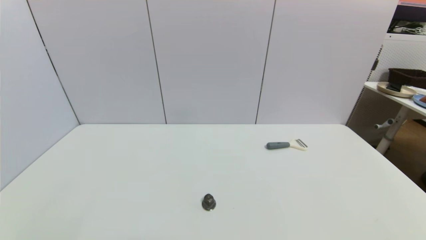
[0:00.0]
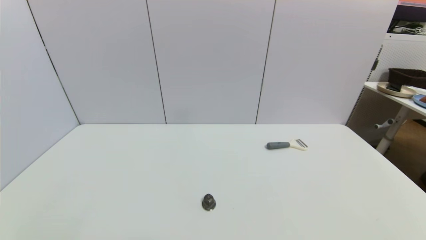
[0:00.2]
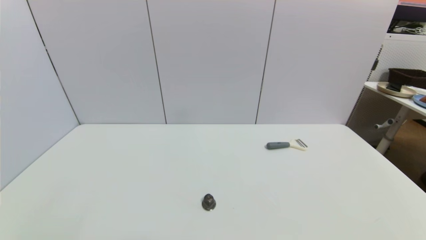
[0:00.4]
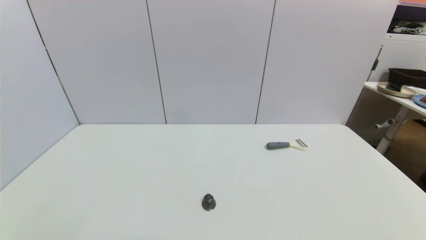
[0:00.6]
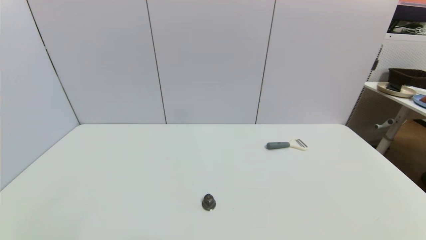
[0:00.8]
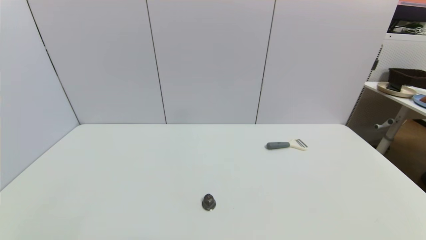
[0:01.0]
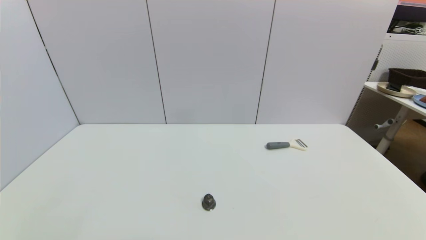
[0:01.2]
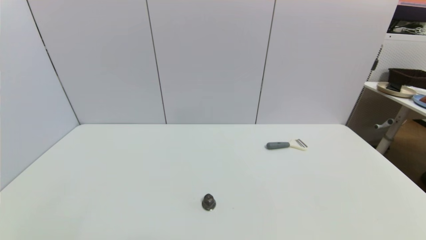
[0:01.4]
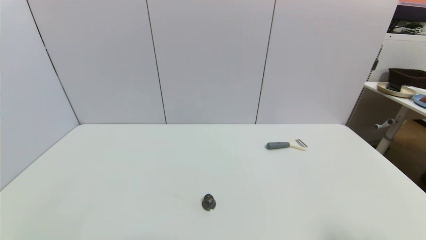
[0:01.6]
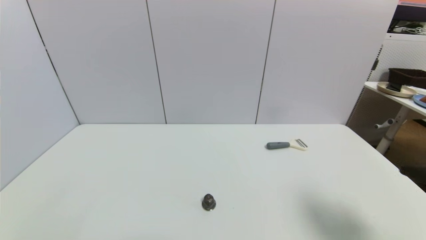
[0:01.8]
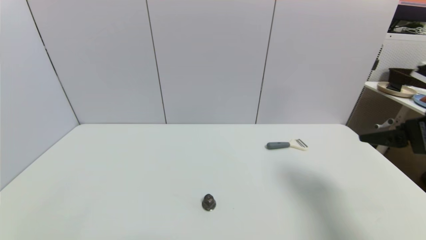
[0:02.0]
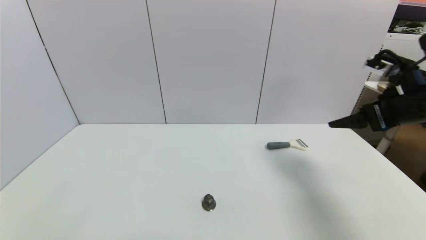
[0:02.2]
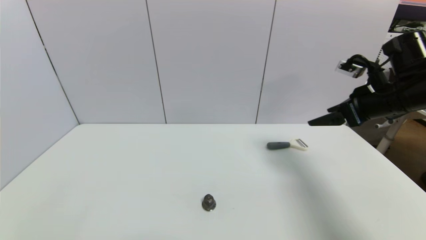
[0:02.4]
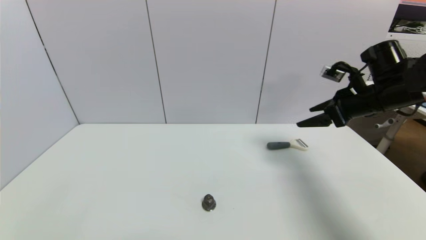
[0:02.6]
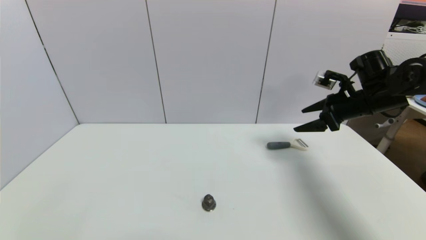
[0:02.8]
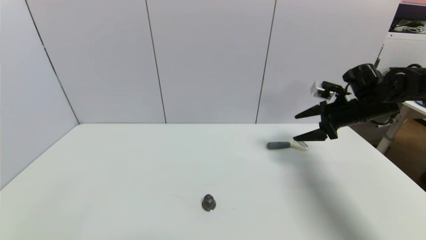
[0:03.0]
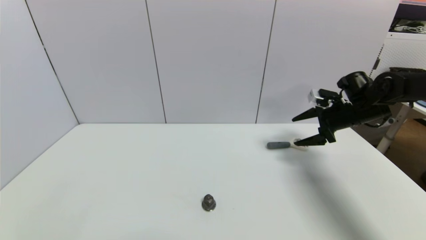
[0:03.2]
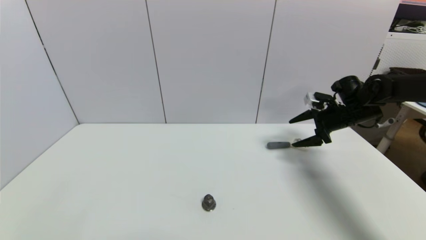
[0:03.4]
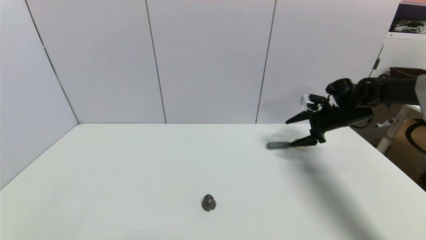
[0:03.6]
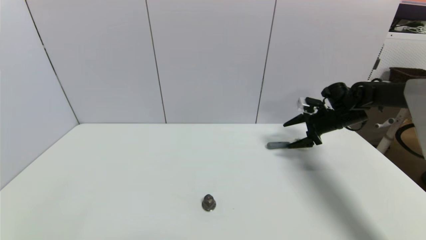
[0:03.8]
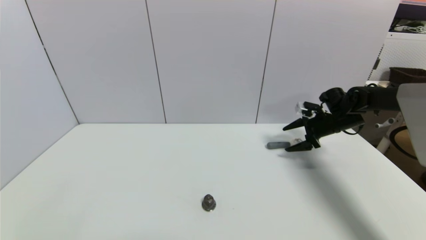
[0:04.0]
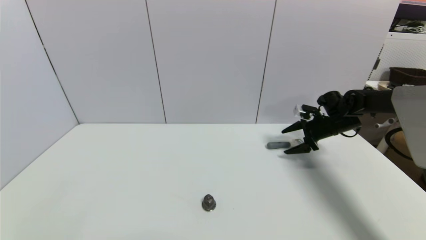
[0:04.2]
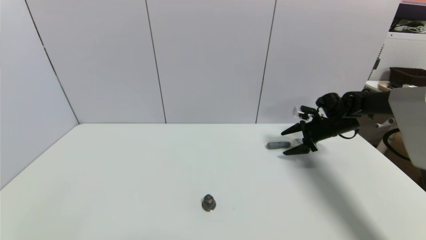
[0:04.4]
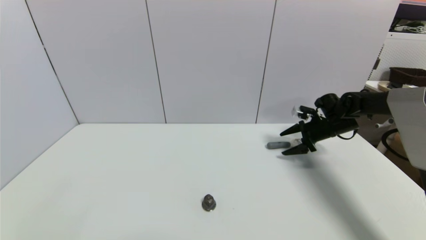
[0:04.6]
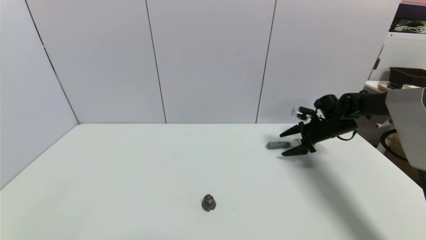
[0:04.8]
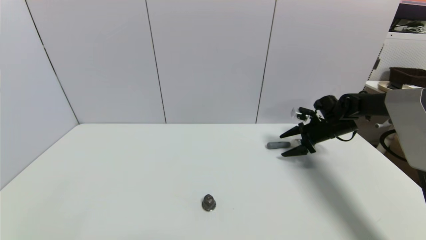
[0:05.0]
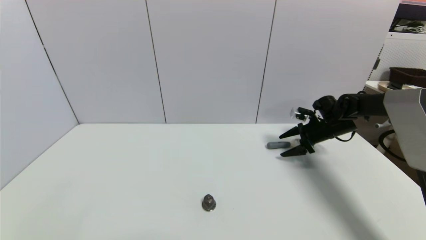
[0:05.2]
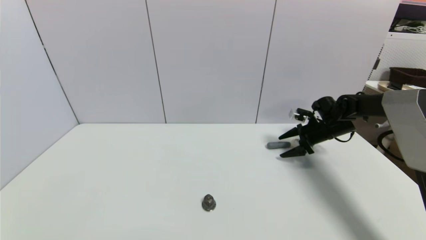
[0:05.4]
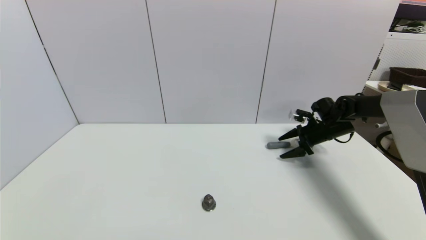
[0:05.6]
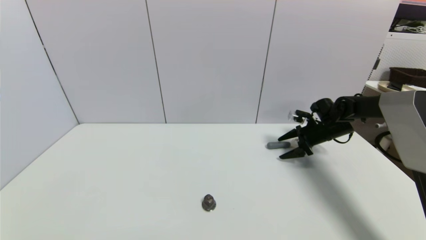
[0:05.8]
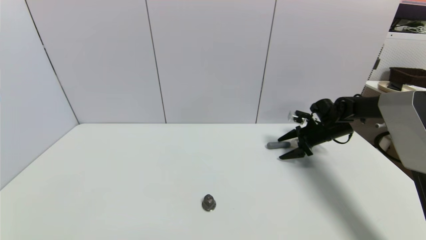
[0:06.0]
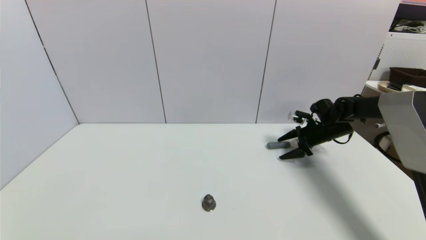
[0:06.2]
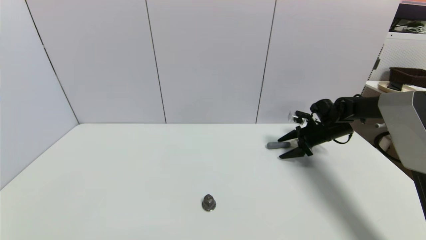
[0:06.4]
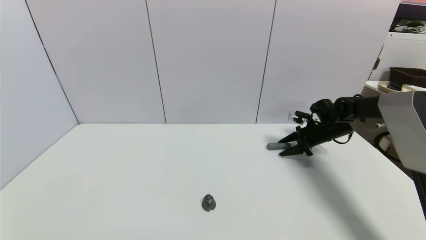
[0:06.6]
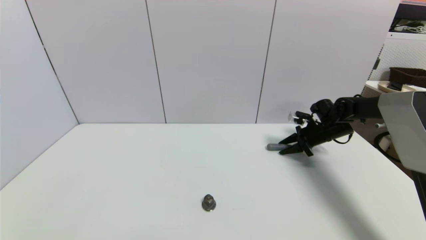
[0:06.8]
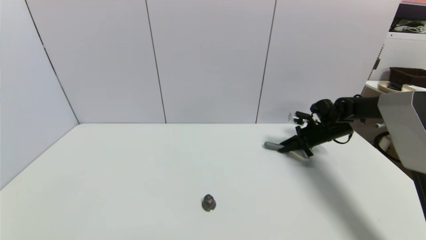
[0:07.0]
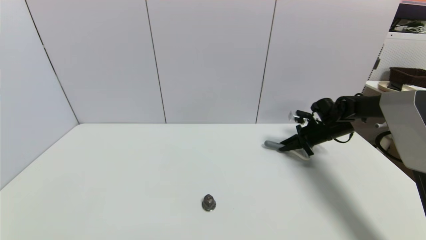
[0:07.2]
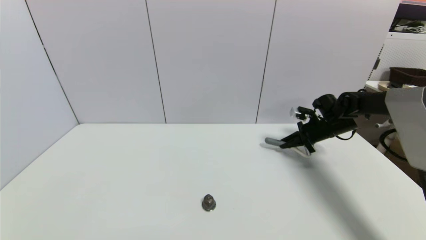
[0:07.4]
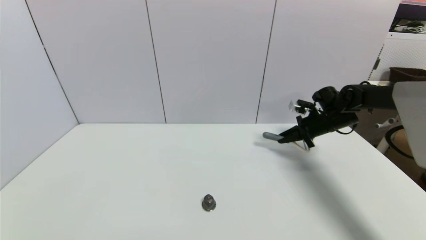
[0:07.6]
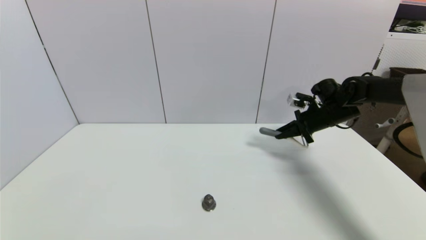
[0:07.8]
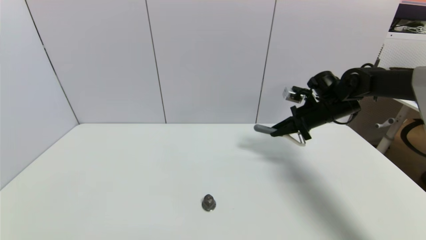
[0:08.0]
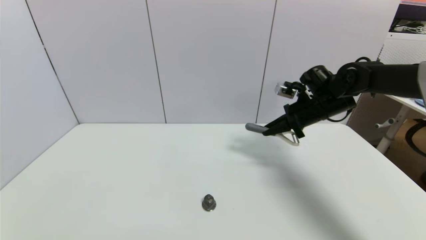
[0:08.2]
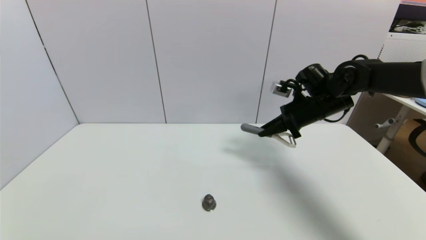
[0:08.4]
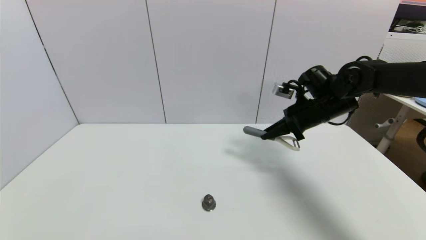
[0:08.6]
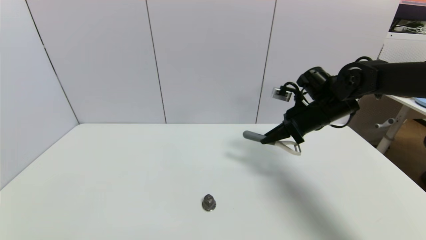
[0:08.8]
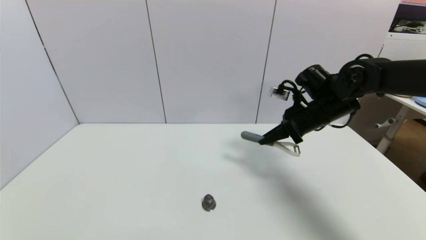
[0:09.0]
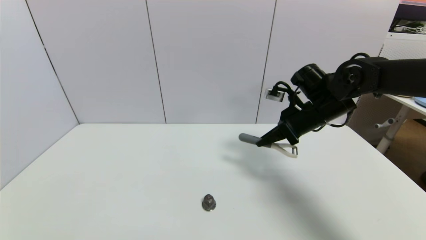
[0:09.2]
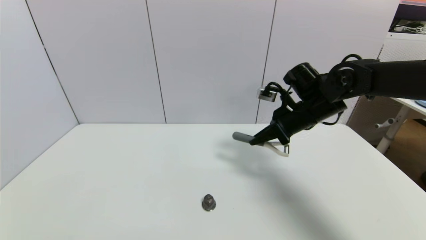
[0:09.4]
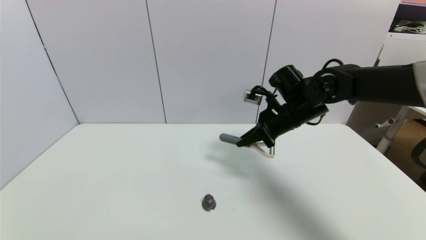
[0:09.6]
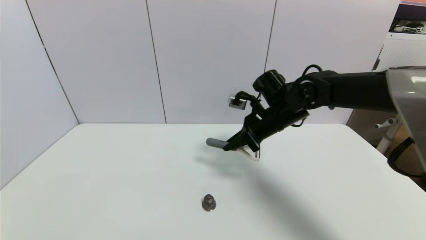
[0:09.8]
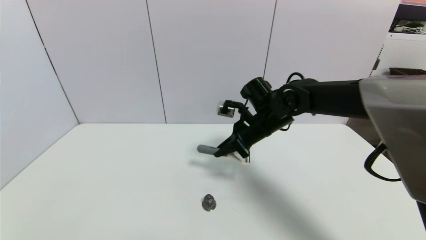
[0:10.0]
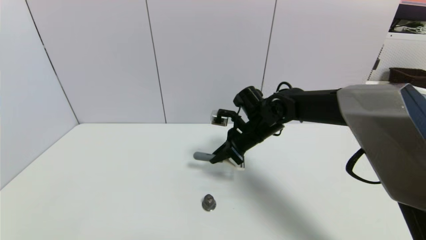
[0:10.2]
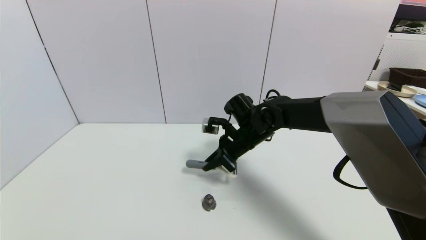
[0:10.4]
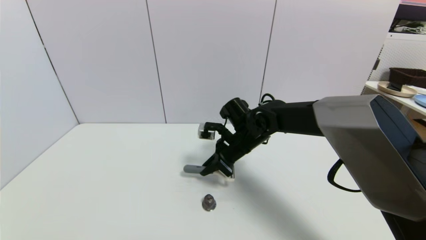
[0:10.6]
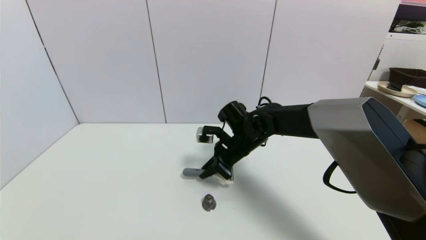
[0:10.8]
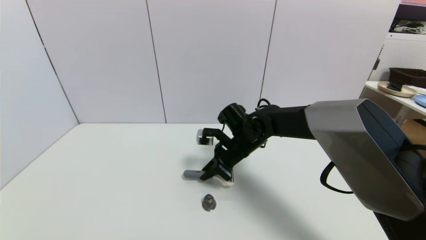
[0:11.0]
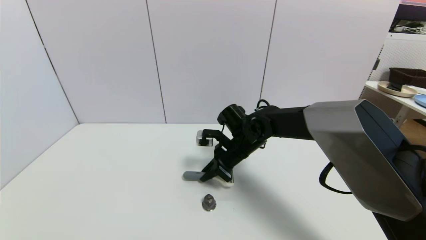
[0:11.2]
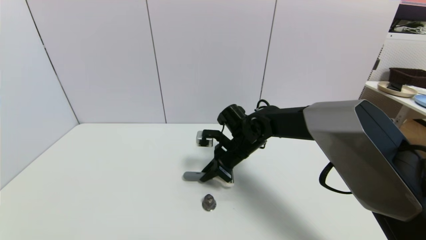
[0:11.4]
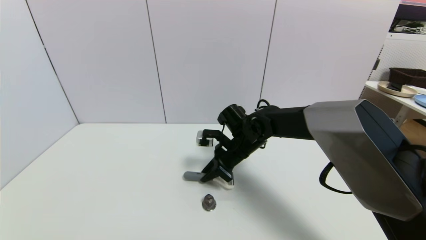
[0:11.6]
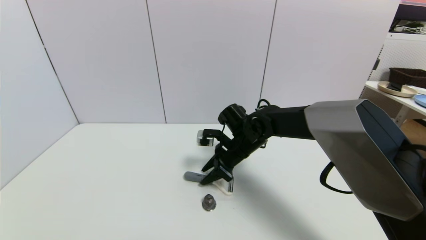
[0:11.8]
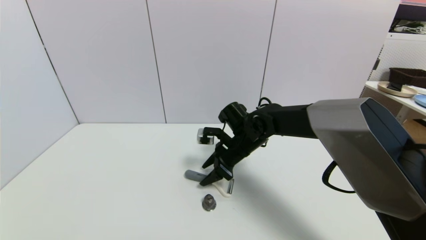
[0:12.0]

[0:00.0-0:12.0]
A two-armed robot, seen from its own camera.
Step, 0:01.8 to 0:07.6: Grasp the peeler with right gripper.
0:01.6 to 0:03.0: The right gripper is displaced forward by roughly 35 cm.
0:03.0 to 0:04.4: The right gripper shifts some 10 cm downward and forward.
0:04.4 to 0:06.0: The grippers move only a little.
0:06.0 to 0:07.6: The right gripper closes.
0:07.6 to 0:09.0: The right gripper shifts some 15 cm to the left, backward and upward.
0:09.0 to 0:10.4: The right gripper travels to the left and downward by some 15 cm.
0:10.4 to 0:12.0: The right gripper opens.

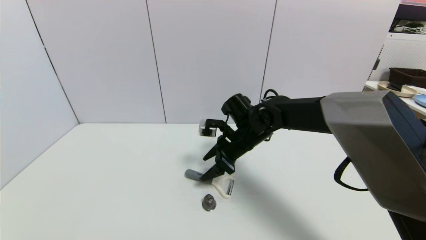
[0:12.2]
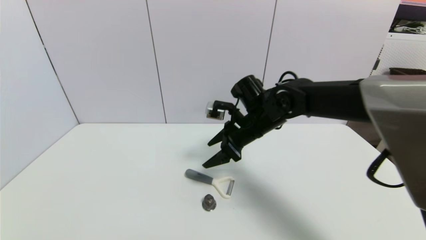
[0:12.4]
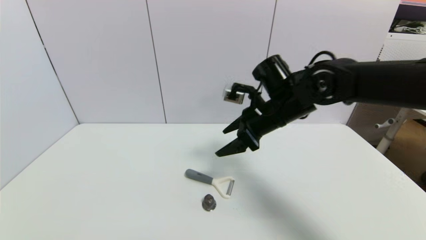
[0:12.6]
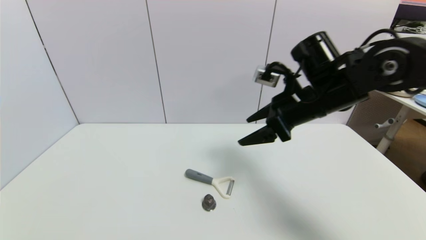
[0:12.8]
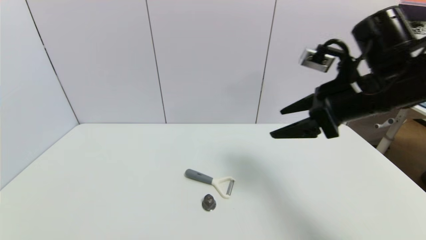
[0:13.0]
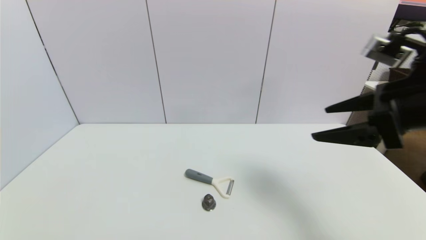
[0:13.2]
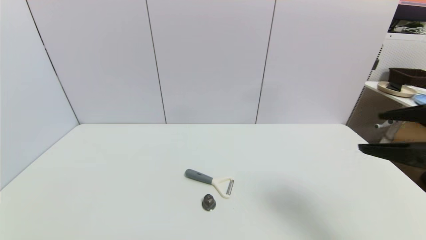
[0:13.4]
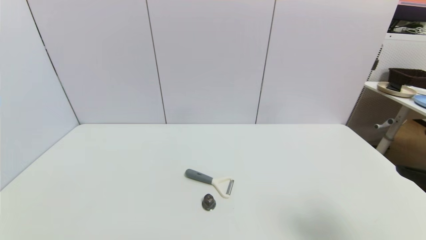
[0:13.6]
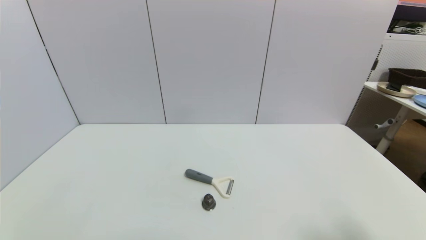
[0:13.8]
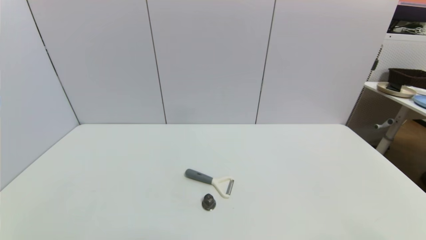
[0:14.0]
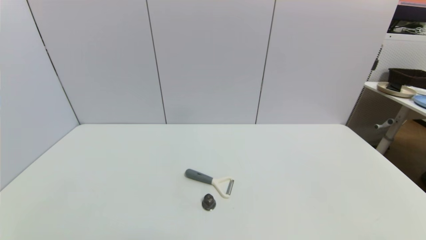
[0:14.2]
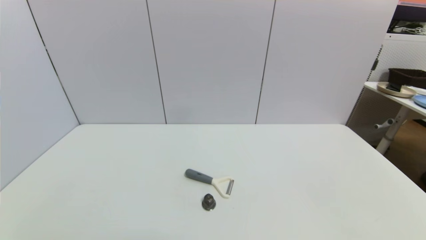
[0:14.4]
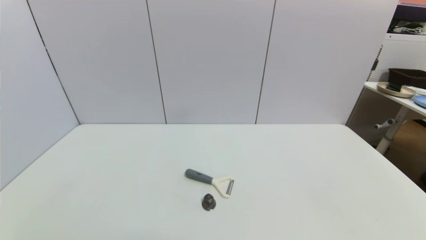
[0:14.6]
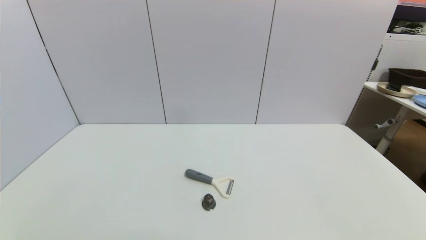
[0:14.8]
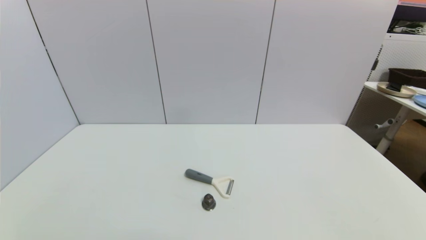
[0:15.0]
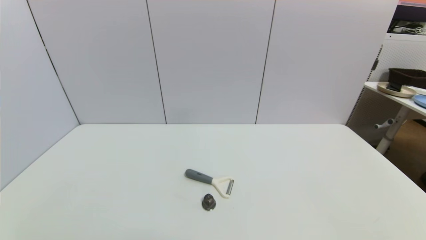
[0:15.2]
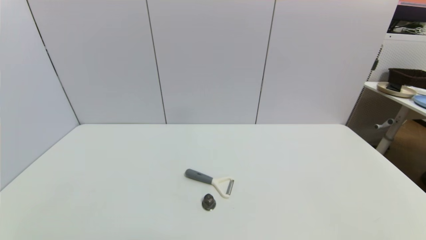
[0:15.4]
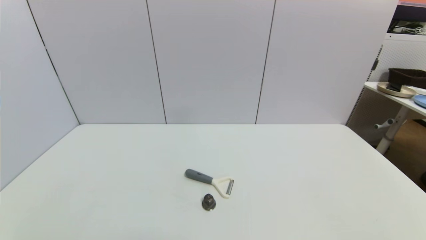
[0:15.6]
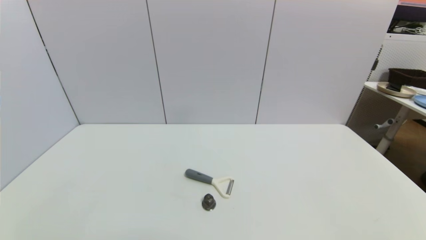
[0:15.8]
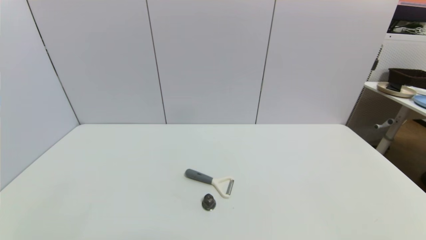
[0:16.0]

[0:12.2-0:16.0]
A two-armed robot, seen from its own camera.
0:12.2 to 0:13.4: The right gripper heads to the right, backward and upward, covering about 35 cm.
0:13.4 to 0:14.8: The right gripper is displaced downward and backward by about 25 cm.

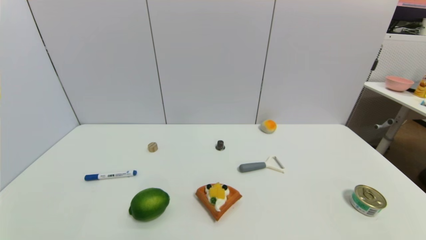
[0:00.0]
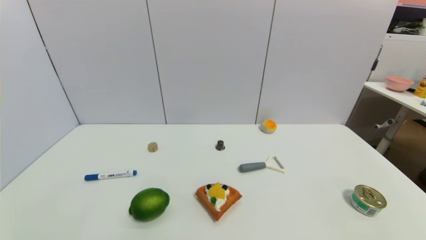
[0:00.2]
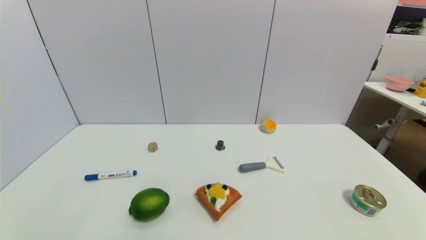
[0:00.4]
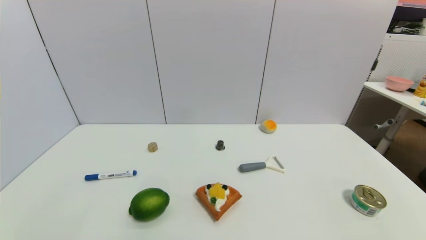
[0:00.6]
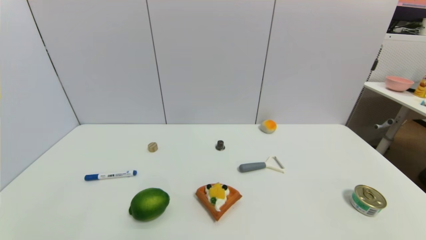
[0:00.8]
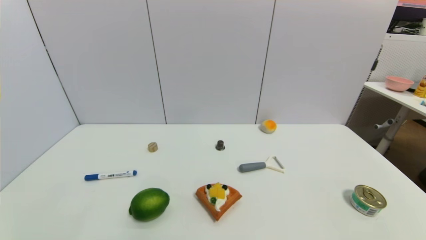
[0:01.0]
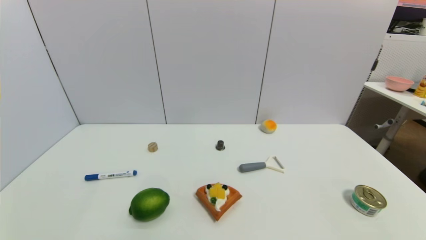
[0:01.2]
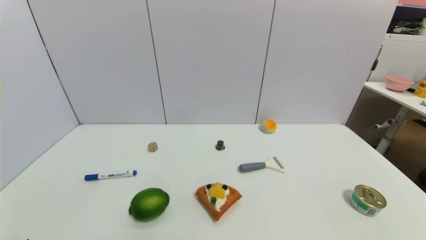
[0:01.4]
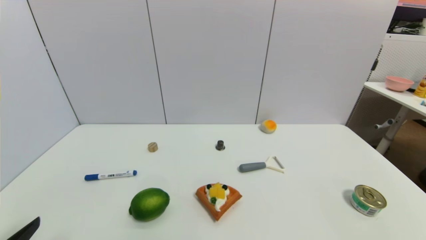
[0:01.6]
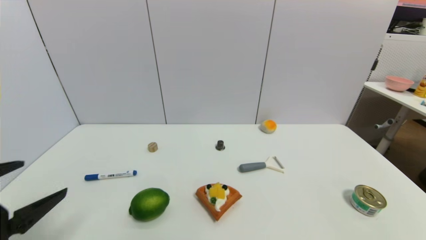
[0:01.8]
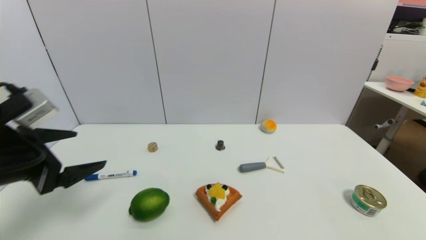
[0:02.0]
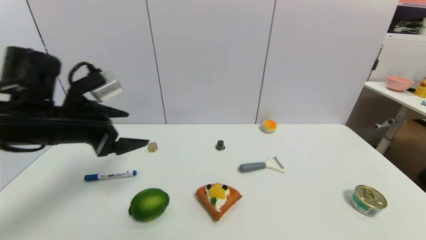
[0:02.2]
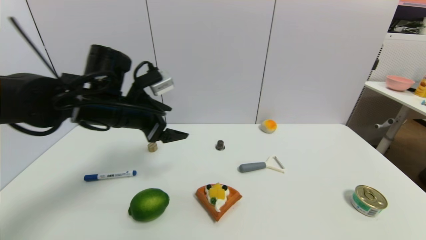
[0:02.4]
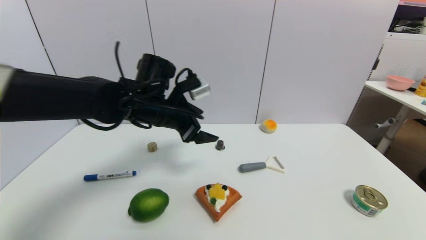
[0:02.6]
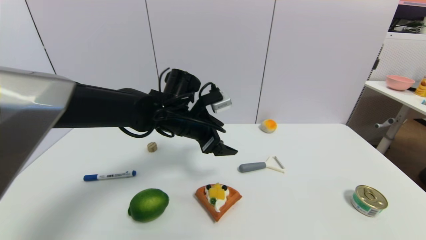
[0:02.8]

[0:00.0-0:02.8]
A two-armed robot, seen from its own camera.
0:01.4 to 0:02.8: The left gripper is displaced forward and to the right by approximately 40 cm.
